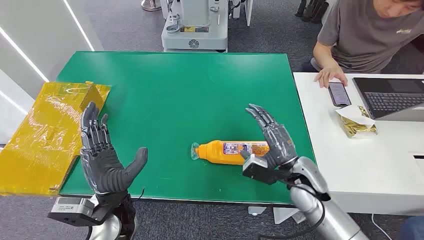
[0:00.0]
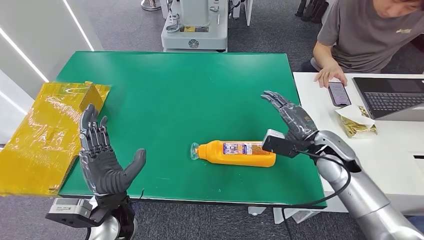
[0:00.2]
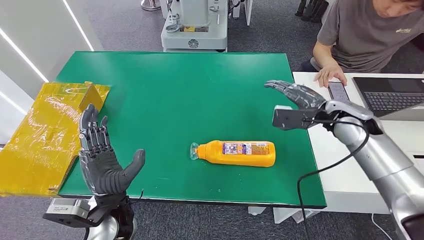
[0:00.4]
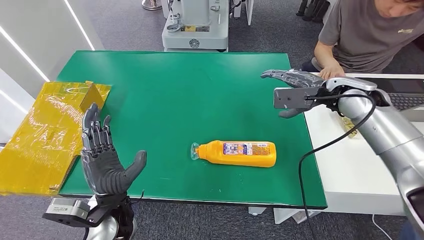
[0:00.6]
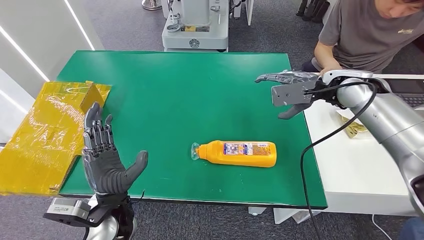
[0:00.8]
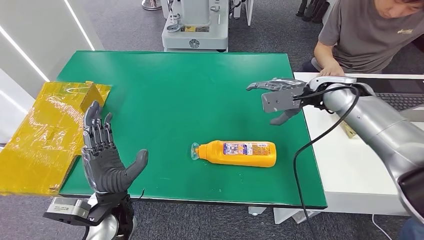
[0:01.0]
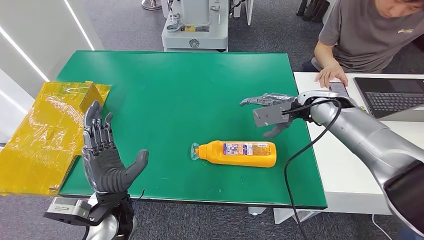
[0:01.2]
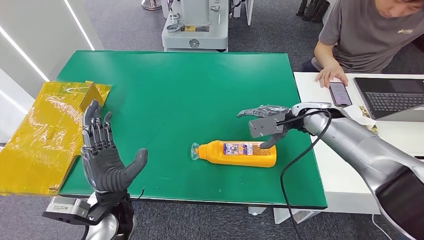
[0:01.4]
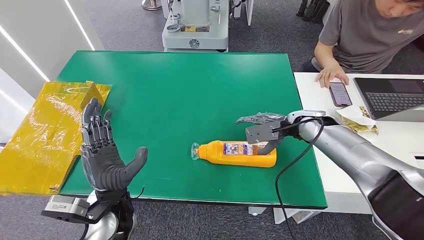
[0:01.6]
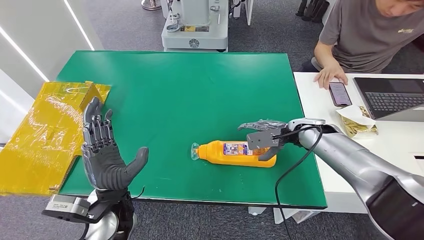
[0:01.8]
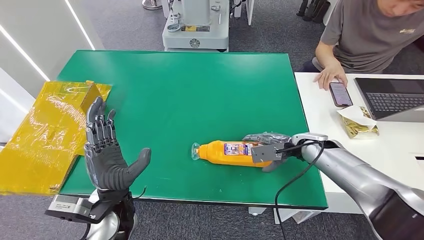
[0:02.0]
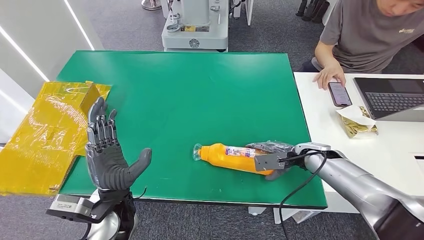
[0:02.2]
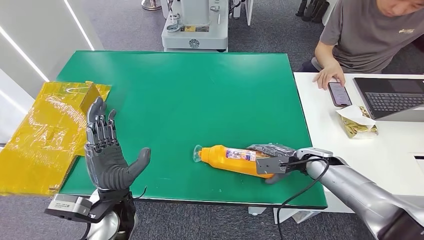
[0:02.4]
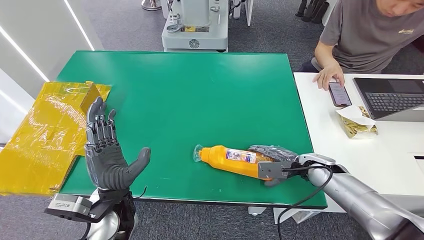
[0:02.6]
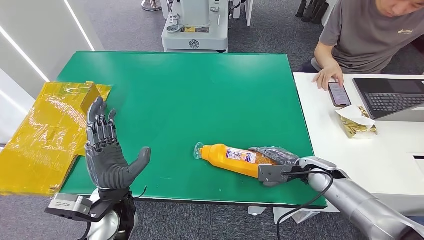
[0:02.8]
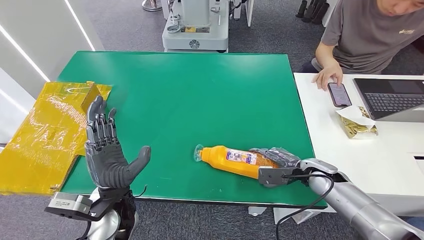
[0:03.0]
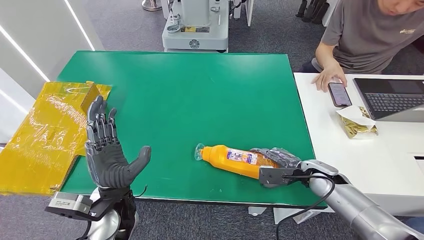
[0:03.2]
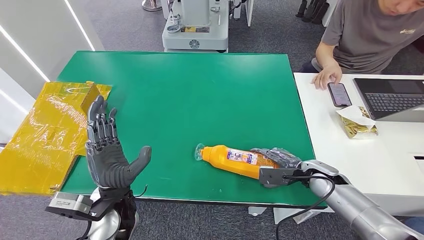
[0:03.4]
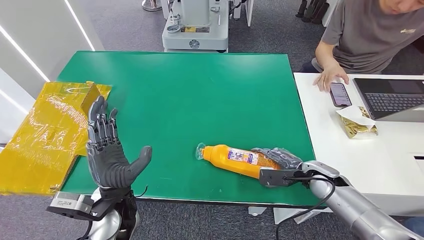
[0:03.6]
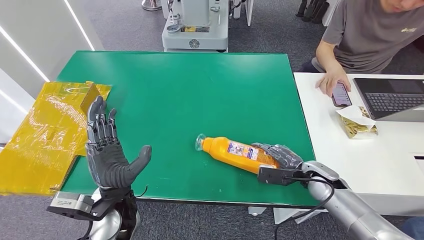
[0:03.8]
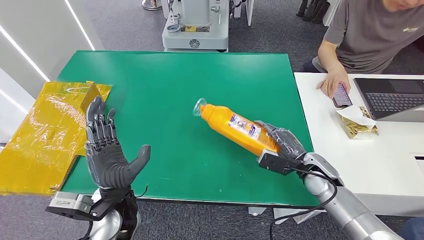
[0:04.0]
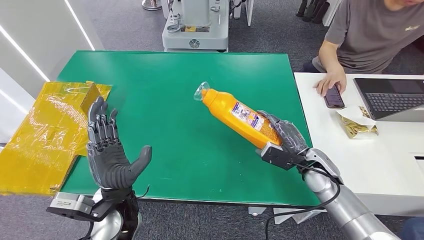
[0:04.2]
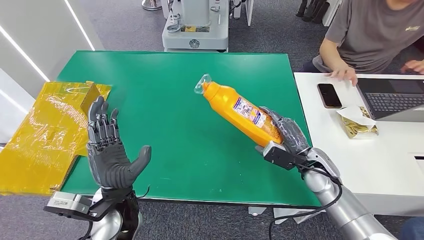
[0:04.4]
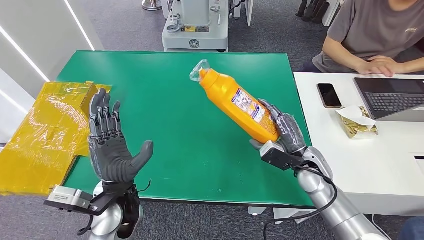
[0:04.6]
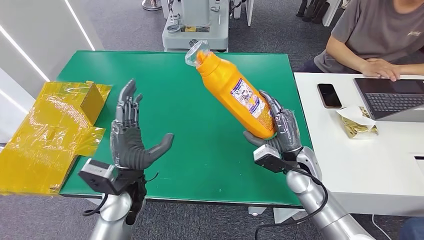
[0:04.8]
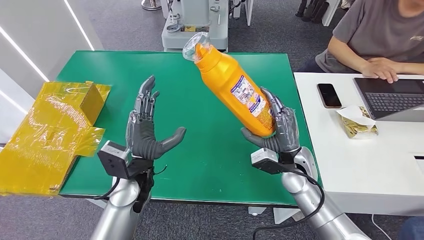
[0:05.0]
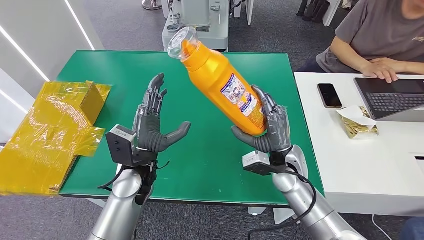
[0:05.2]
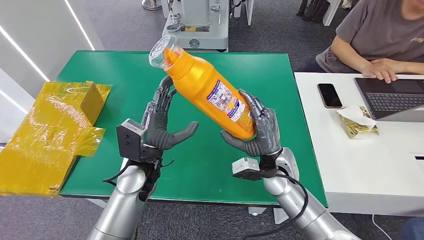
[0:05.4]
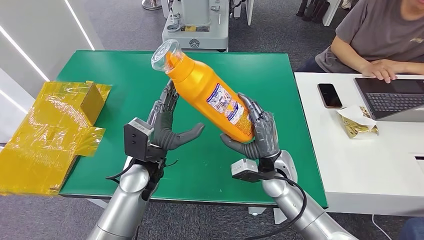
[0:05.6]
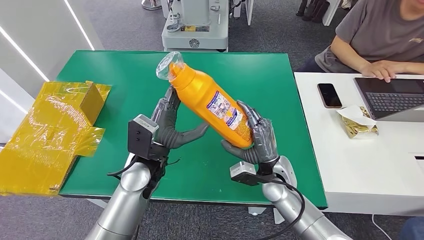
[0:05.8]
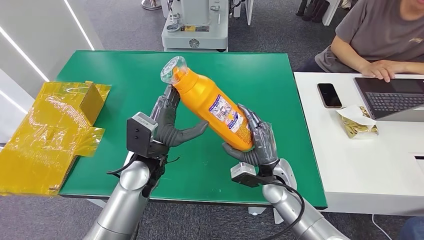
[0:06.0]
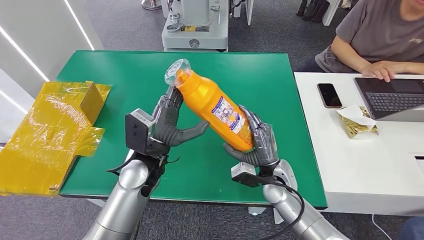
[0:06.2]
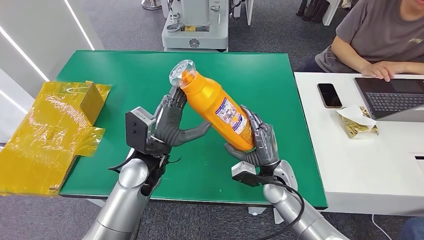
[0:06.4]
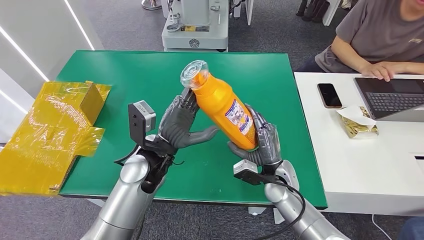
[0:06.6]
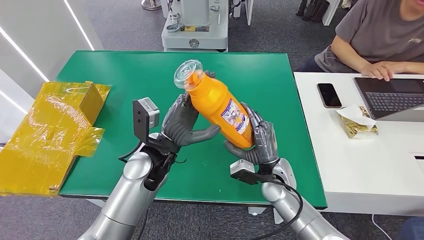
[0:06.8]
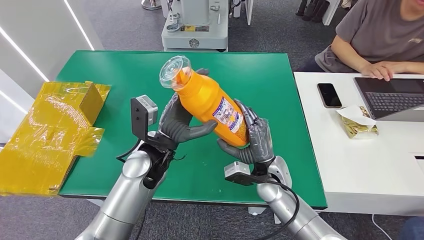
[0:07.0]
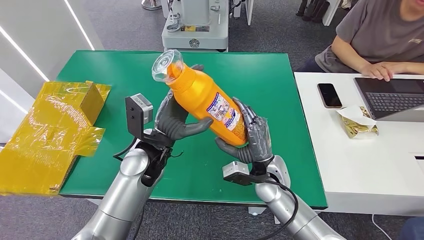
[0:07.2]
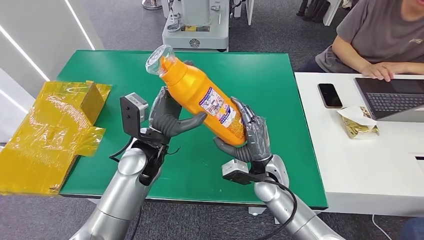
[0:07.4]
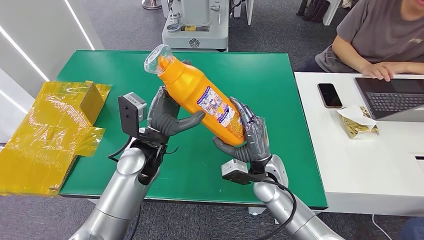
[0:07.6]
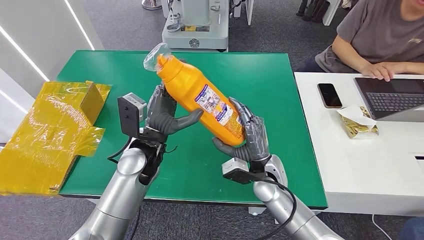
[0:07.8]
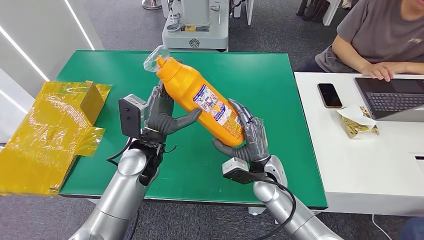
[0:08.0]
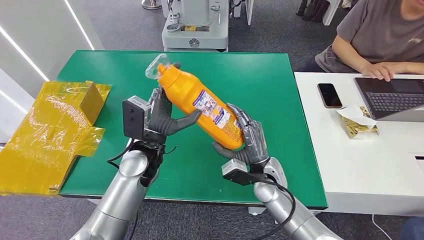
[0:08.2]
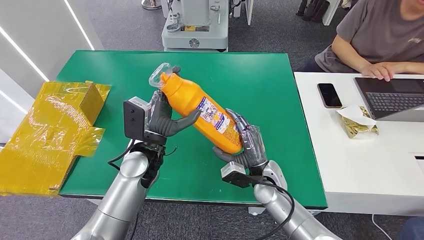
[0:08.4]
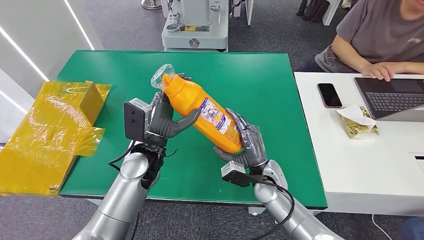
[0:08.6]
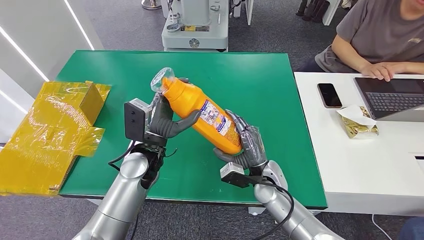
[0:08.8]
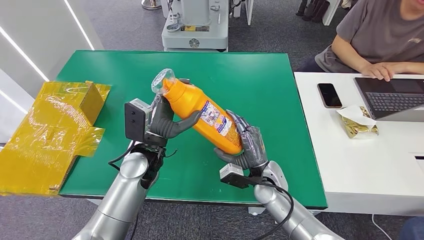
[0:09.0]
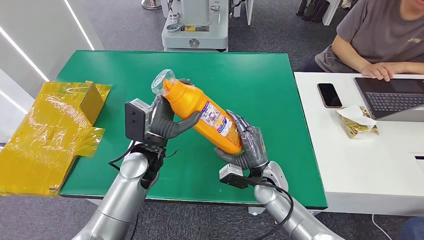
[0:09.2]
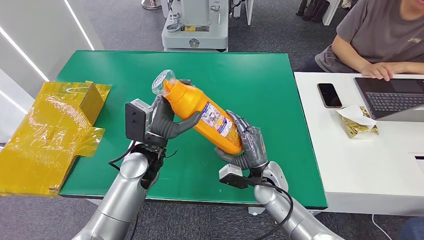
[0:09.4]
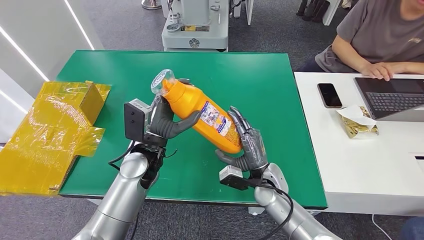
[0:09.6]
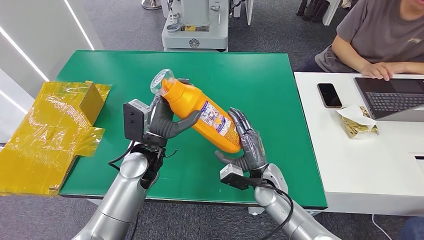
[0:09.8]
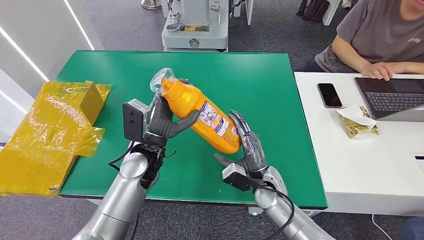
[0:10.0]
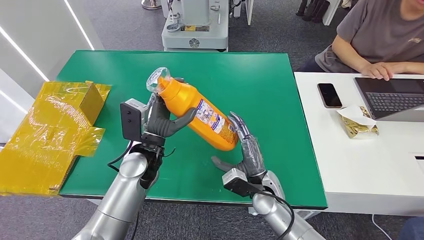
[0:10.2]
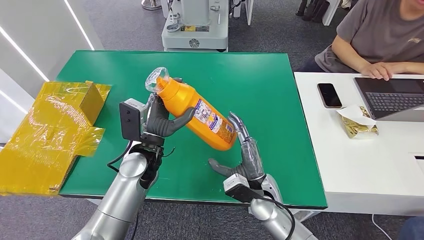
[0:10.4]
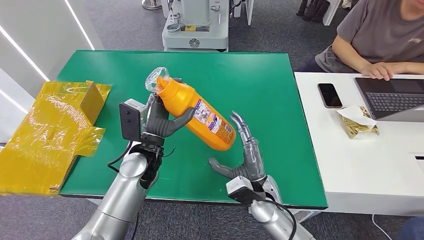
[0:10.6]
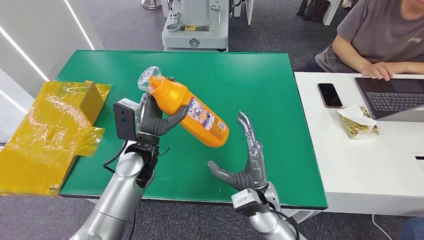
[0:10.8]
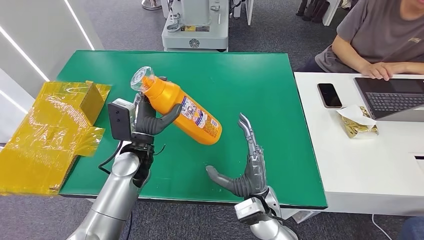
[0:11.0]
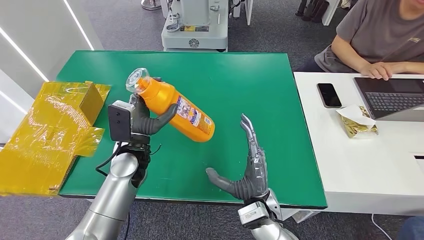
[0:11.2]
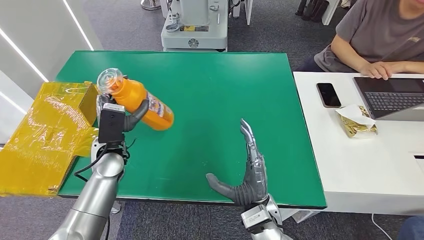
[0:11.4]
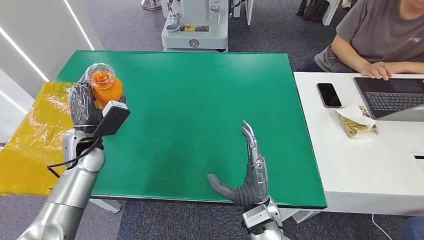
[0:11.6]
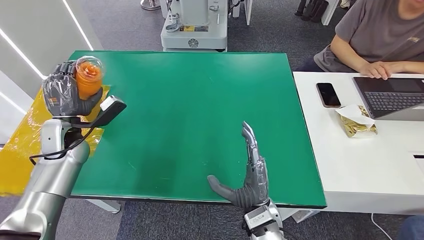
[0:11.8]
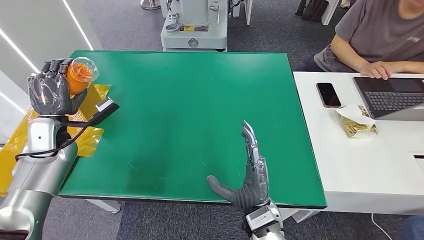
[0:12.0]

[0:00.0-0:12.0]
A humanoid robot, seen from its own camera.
Step, 0:00.0 to 0:04.8: Pick up the bottle from the table.
0:01.6 to 0:03.0: The right hand shifts roughly 15 cm downward and backward.
0:07.6 to 0:10.4: The hands make only small movements.

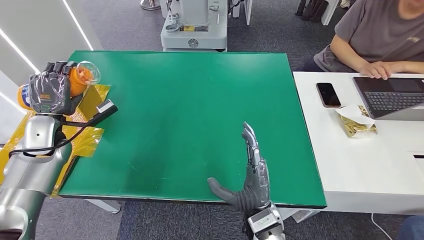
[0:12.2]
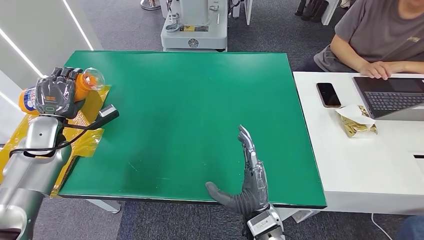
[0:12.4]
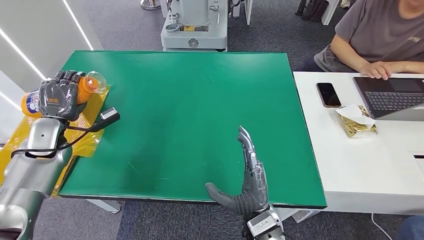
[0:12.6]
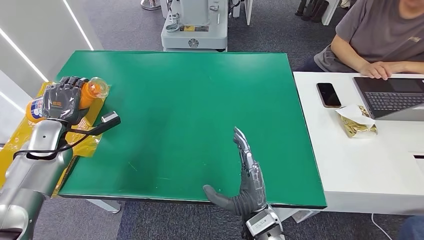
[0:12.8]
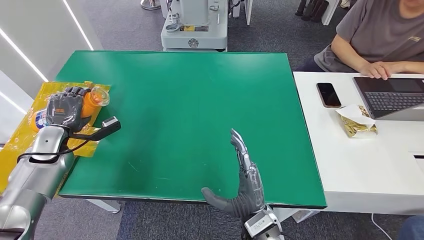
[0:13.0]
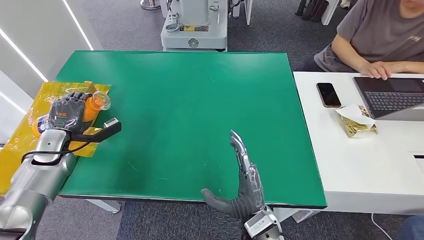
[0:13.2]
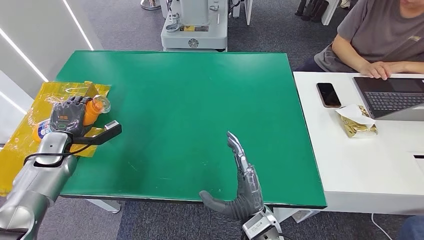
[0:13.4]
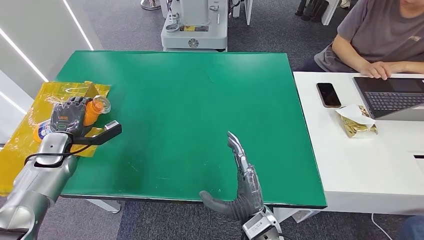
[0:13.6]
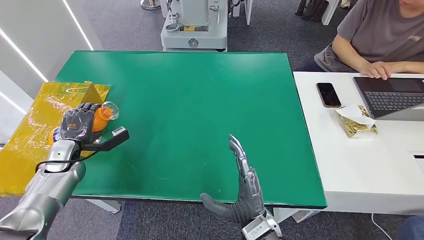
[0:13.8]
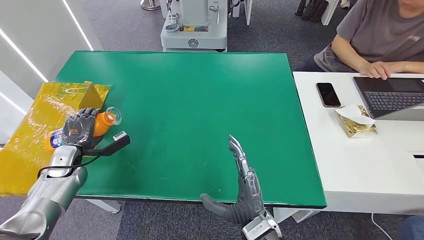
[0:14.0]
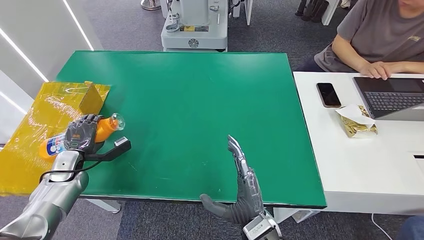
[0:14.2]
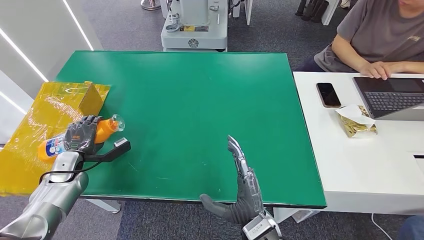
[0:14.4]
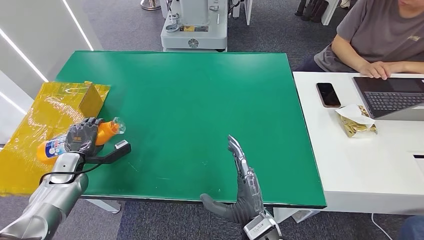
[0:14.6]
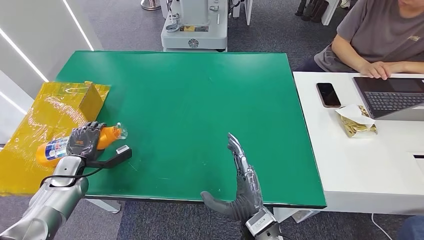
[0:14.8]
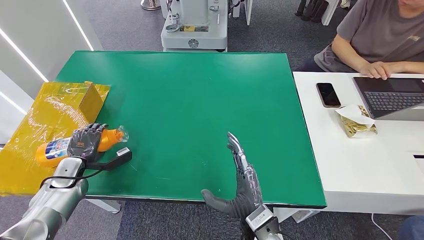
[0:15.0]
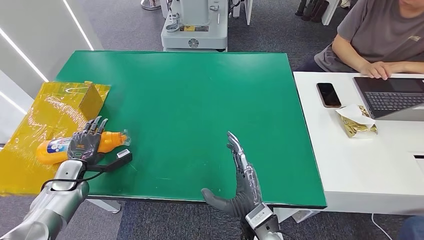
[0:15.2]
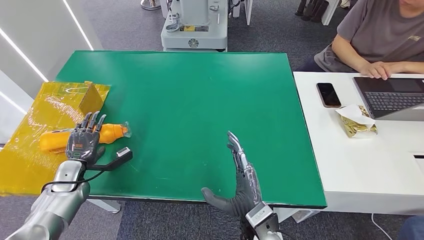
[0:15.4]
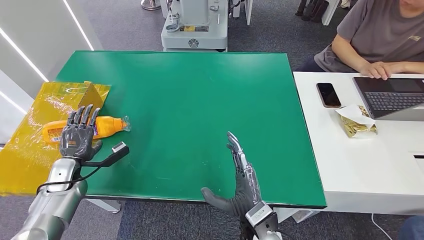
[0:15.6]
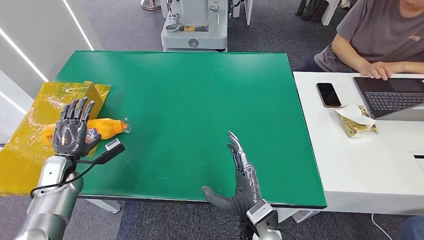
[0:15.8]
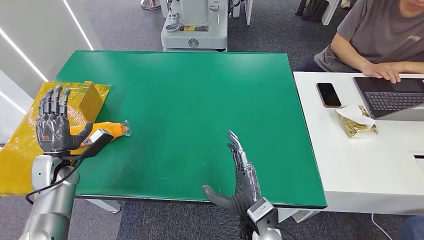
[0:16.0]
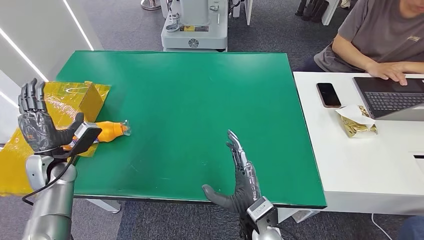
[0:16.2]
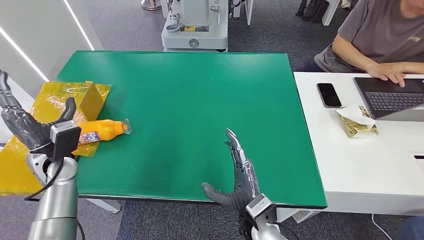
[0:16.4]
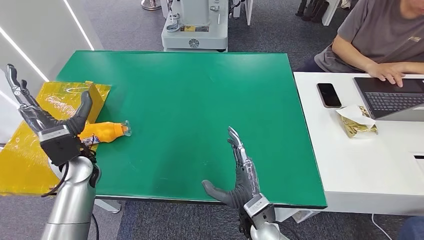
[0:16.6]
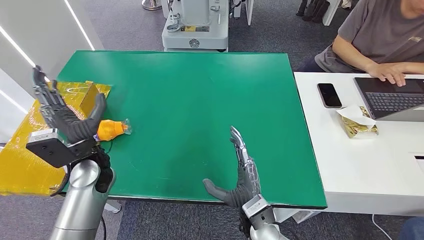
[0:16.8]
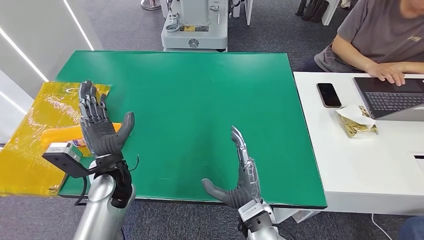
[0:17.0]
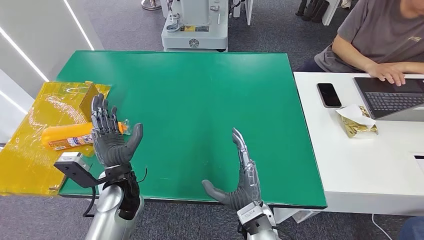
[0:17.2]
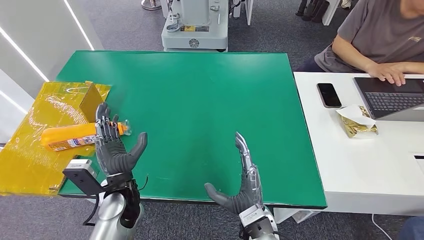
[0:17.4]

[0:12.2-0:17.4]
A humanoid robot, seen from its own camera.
Step, 0:12.2 to 0:17.4: Turn the bottle to the front side.
0:12.2 to 0:14.0: The left hand shifts some 10 cm downward.
0:14.0 to 0:15.6: There are only small adjustments of the hands.
0:15.6 to 0:17.4: The left hand moves to the right, some 20 cm.
